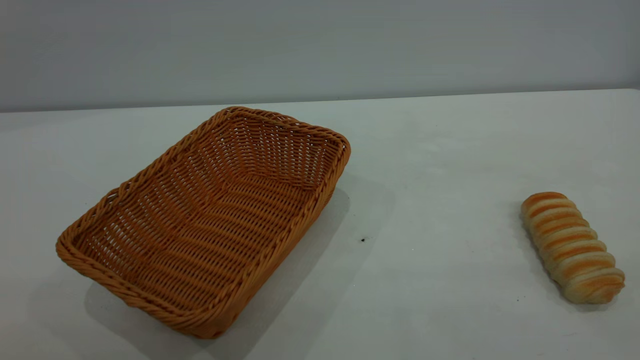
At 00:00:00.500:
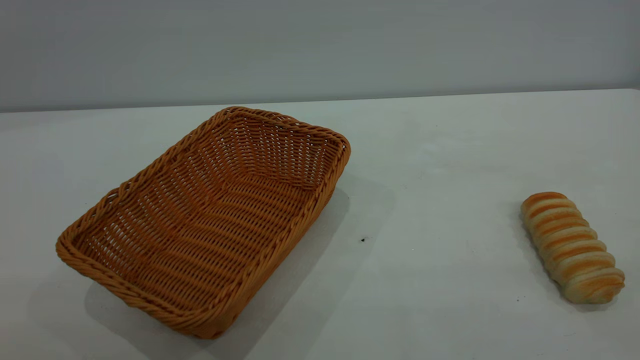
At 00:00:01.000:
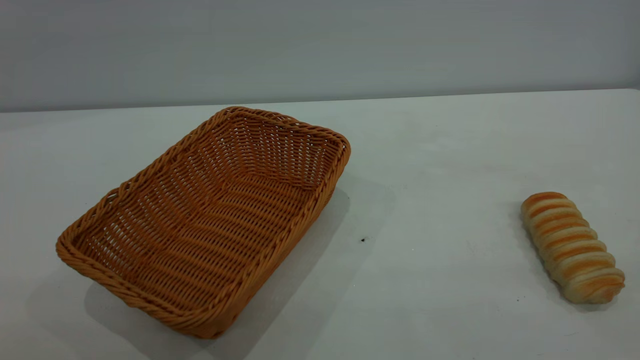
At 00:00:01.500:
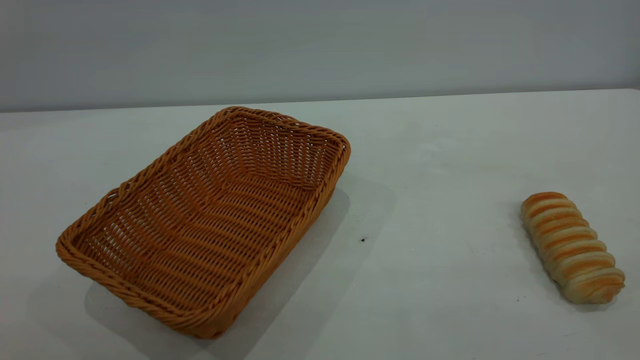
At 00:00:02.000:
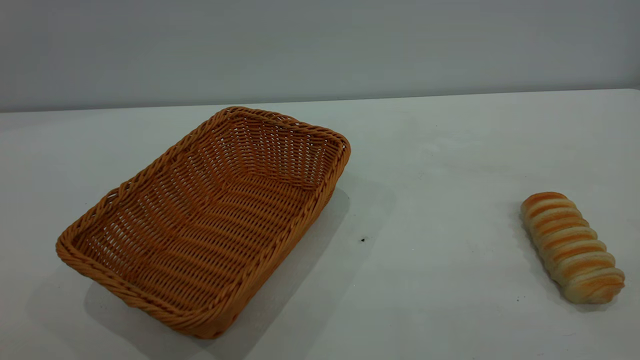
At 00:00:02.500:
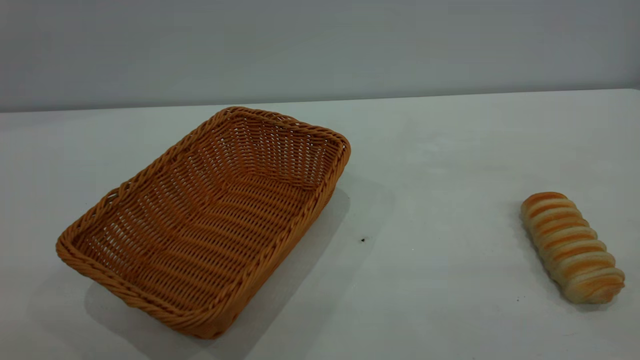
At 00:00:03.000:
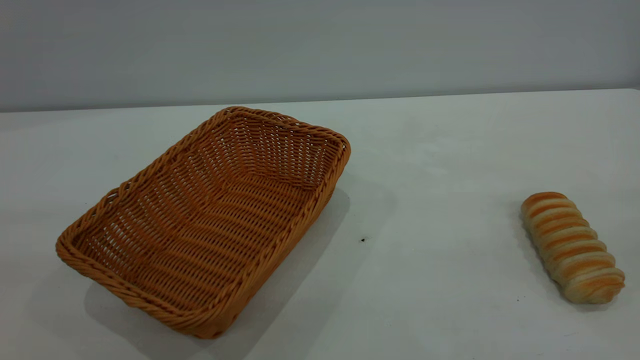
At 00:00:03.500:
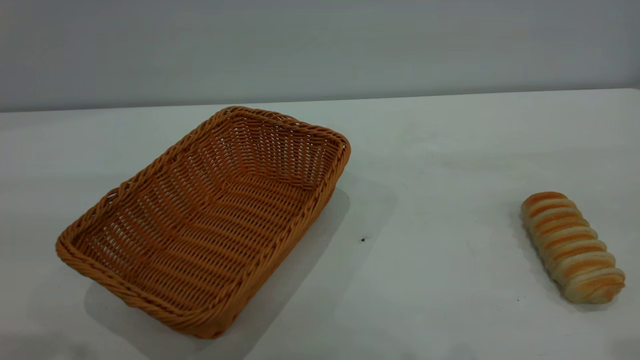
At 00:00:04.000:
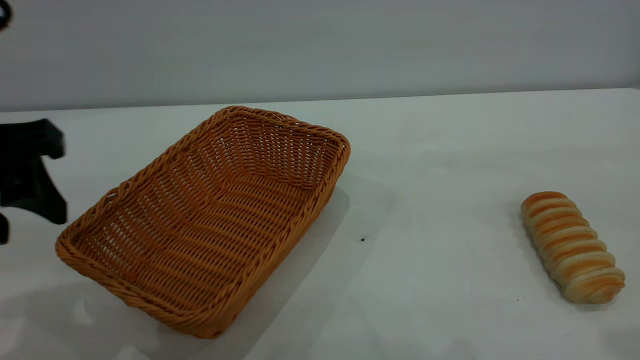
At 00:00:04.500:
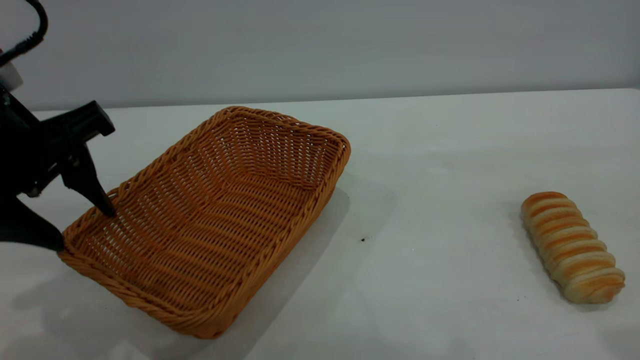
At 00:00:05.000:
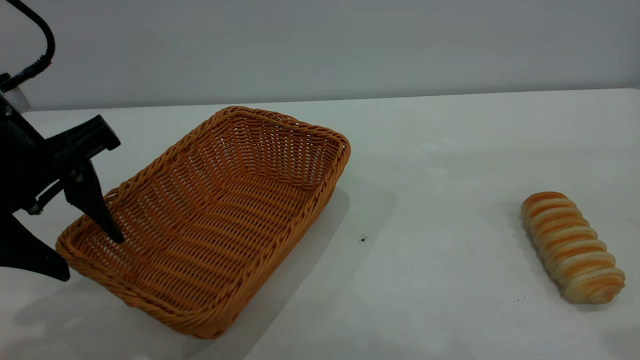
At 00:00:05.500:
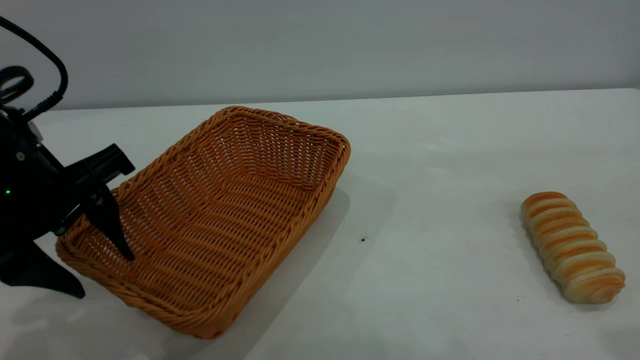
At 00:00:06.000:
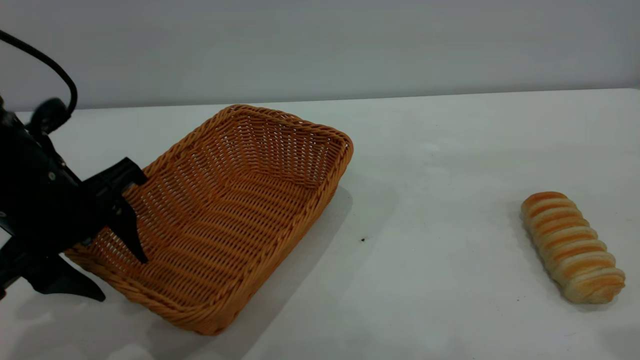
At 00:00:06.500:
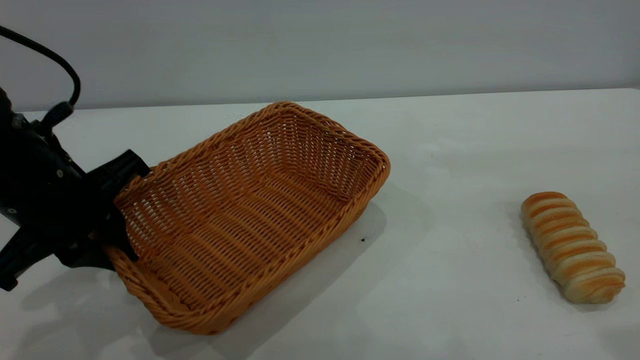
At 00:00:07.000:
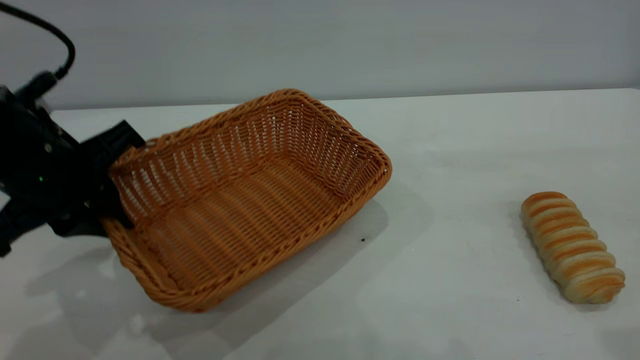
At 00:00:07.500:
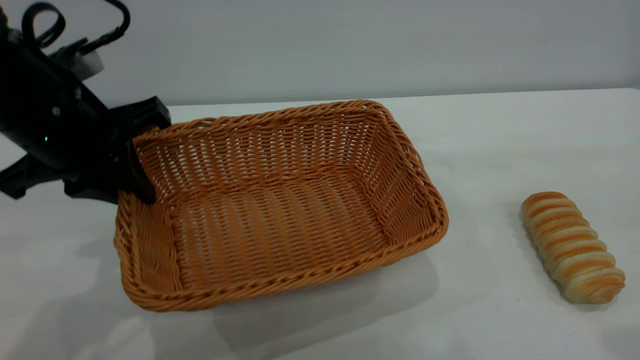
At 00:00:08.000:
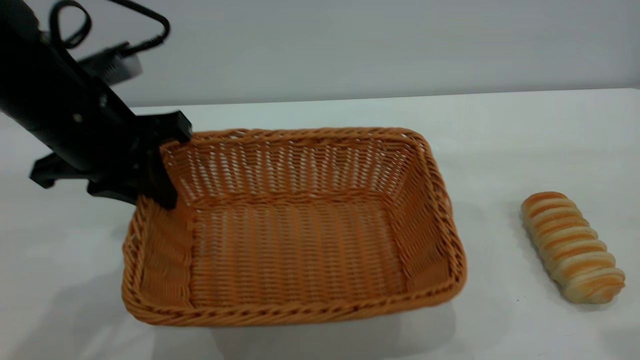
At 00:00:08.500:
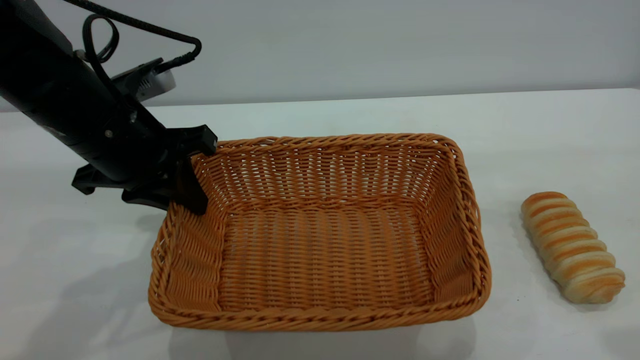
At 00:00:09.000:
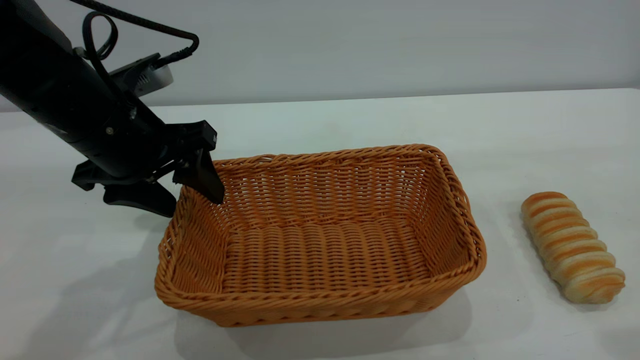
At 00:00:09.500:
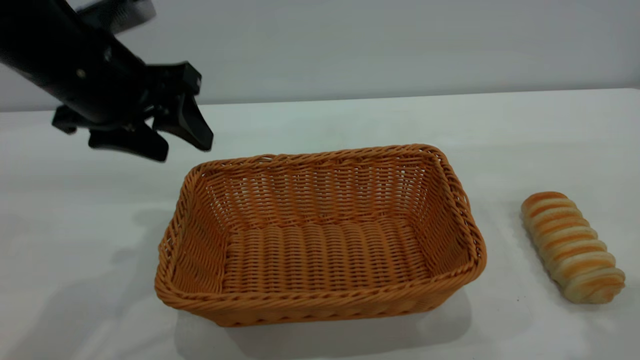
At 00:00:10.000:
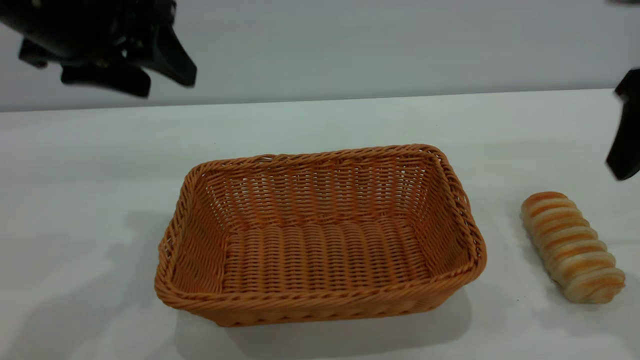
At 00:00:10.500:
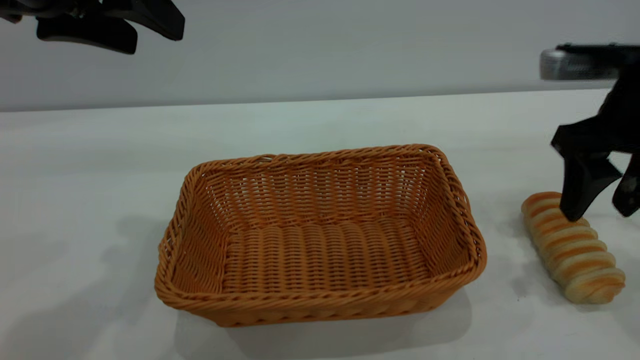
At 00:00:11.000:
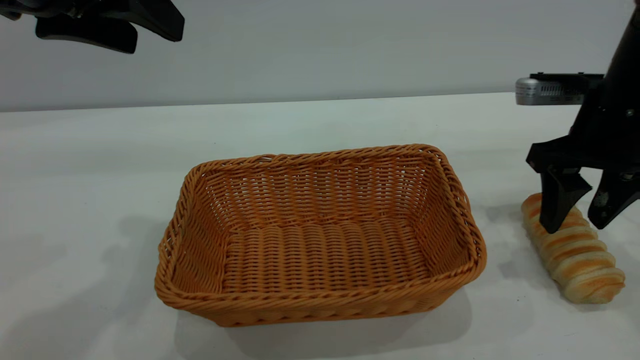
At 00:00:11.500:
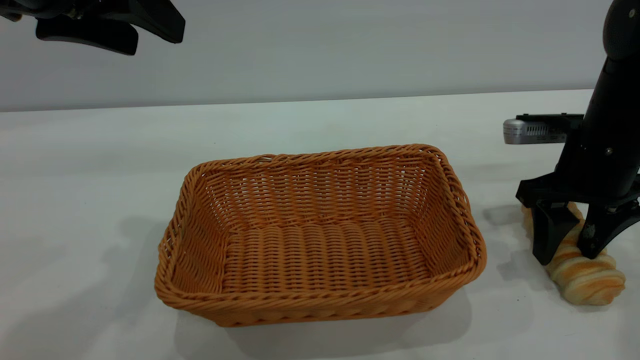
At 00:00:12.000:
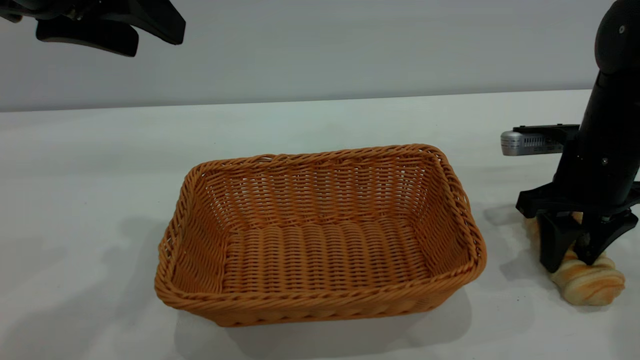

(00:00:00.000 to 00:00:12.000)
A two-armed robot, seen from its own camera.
Task of the whole recording: One hand grasps the yellow basket and places it in the middle of the table, while the other hand picks up the long bread and puts it into the yellow basket.
Step, 00:00:00.000 - 00:00:09.000: Move the basket to the center of view.
00:00:02.000 - 00:00:04.000: The left gripper goes roughly 25 cm forward and downward.
00:00:04.000 - 00:00:06.000: The left gripper travels downward by some 10 cm.
00:00:06.000 - 00:00:08.000: The left gripper moves about 5 cm, and closes.
00:00:08.000 - 00:00:10.000: The right gripper goes approximately 15 cm forward and downward. Meanwhile the left gripper goes roughly 10 cm upward, and opens up.
00:00:10.000 - 00:00:12.000: The right gripper shifts roughly 15 cm downward and forward, and closes up.

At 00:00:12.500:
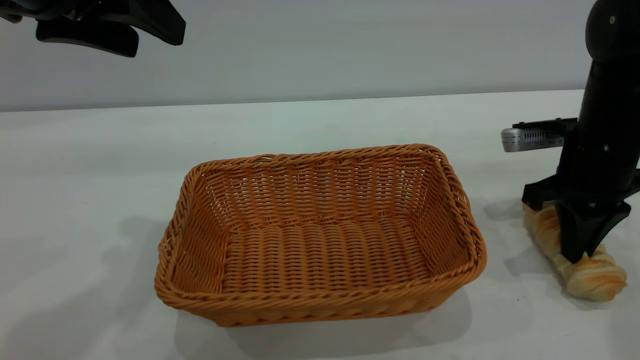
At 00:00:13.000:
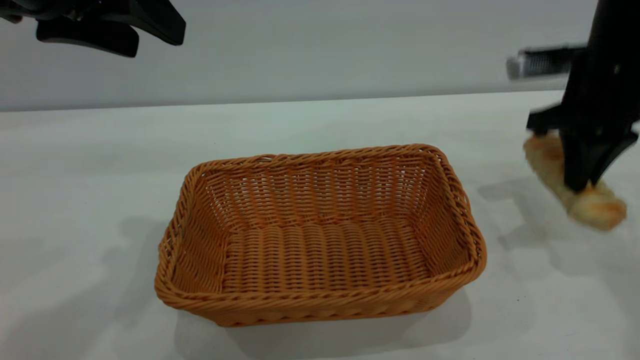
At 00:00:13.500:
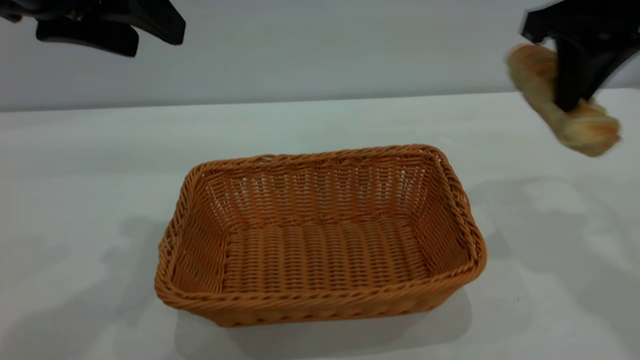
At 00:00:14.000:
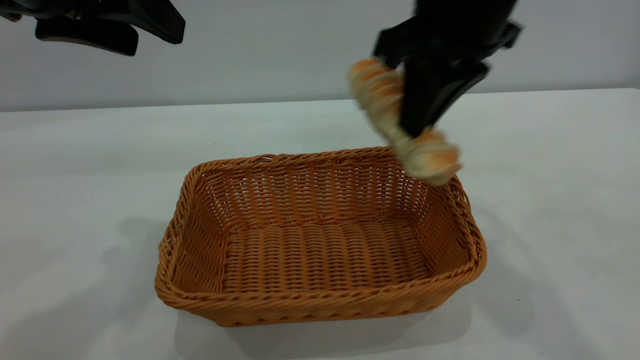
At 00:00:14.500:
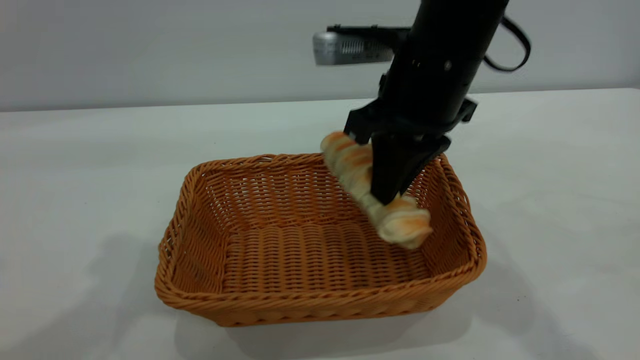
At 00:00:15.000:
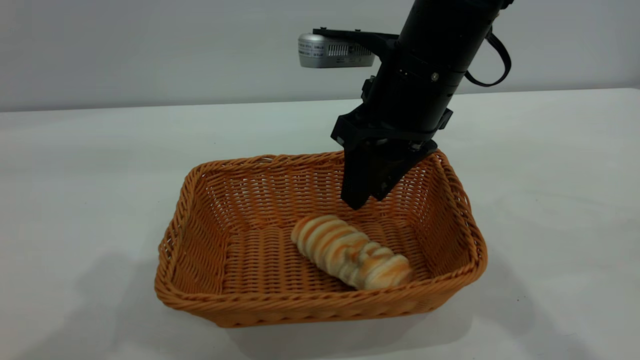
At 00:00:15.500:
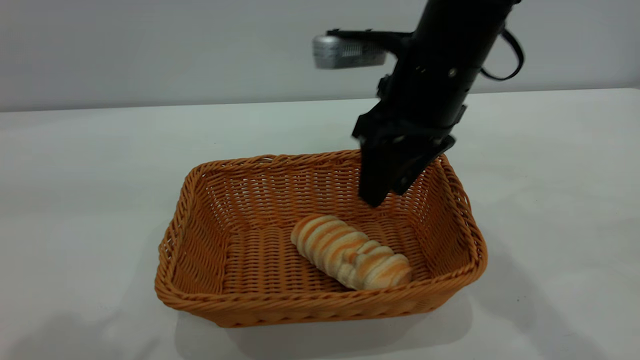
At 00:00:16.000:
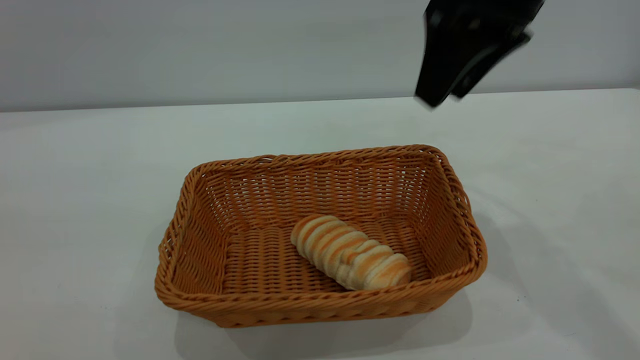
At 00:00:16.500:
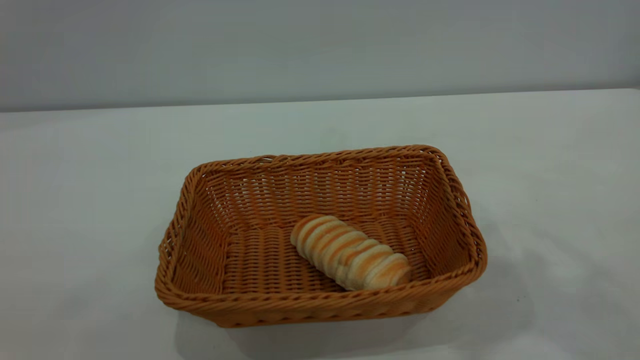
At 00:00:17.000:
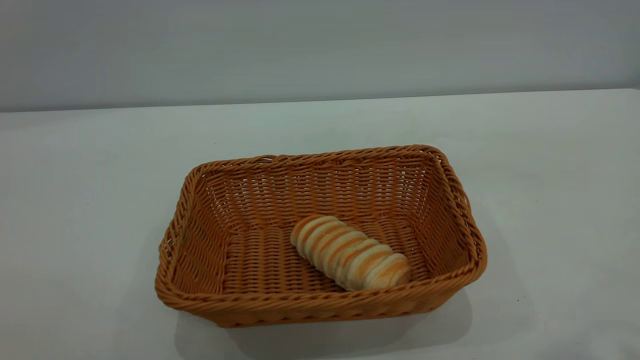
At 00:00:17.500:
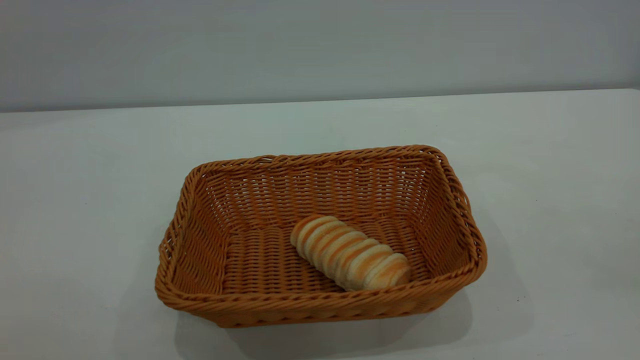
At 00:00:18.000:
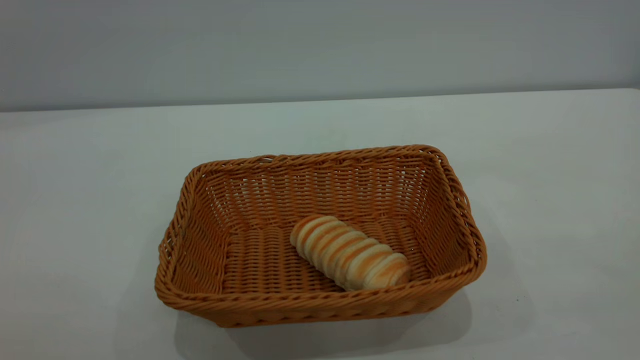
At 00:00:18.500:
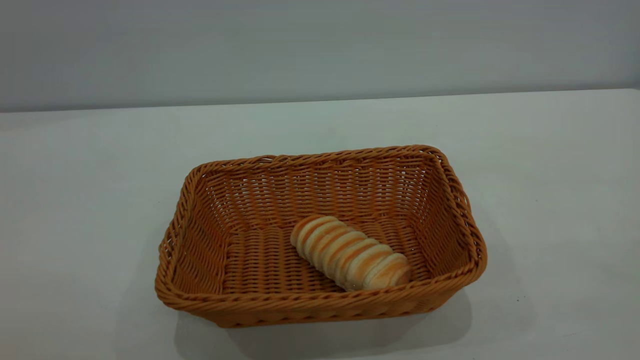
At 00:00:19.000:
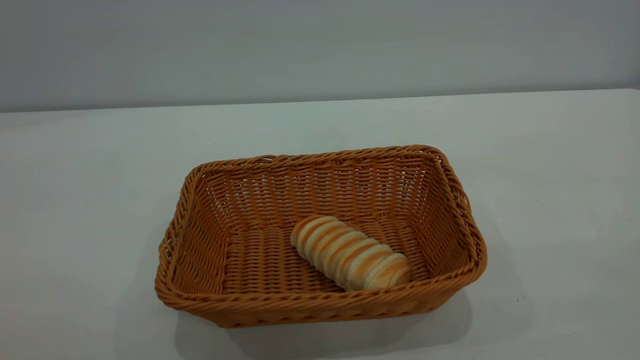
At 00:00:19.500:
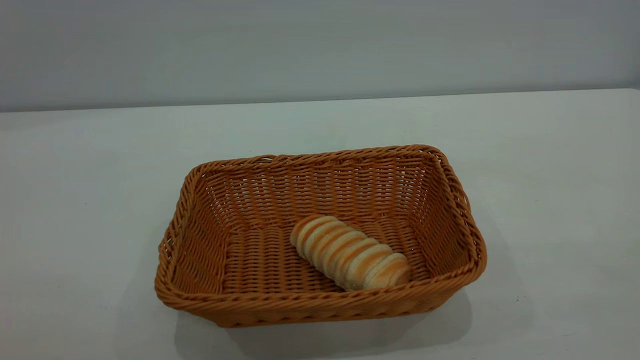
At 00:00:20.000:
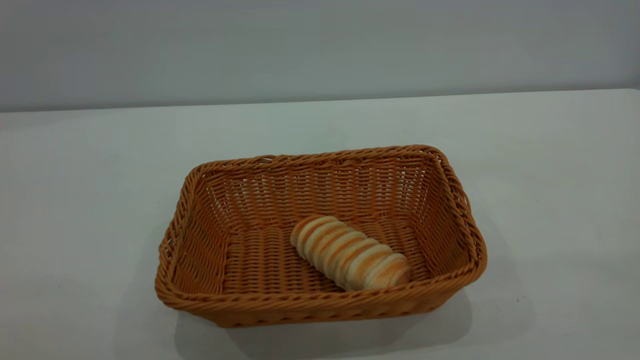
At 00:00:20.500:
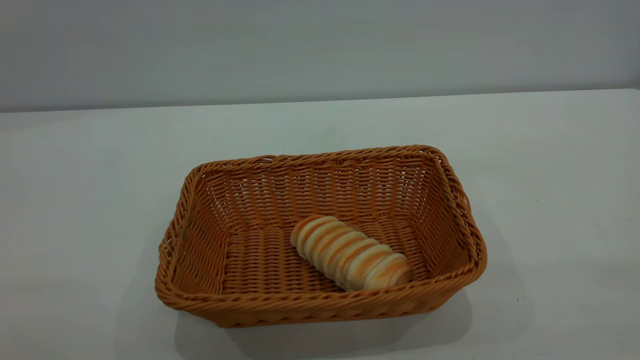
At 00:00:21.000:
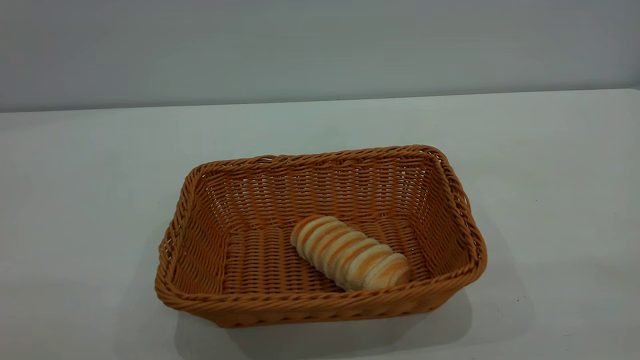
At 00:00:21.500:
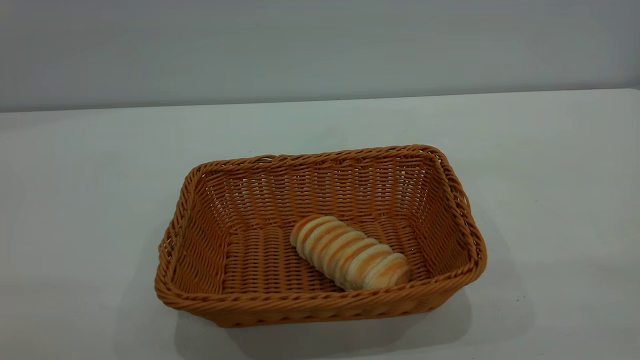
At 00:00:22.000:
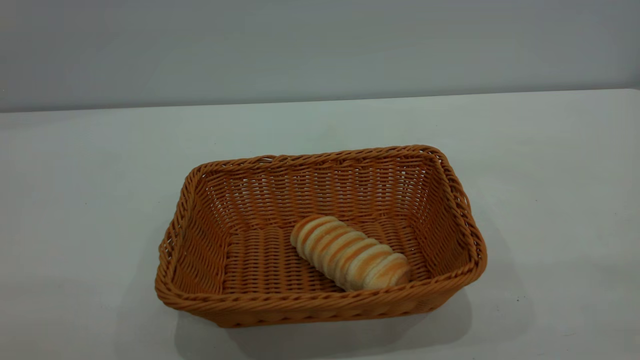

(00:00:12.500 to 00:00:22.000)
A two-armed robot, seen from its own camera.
Task of the whole recording: One hand grasps the yellow basket and places it in the middle of the table, while the other hand picks up the long bread and puts it into the yellow basket.
Step, 00:00:13.500 - 00:00:15.500: place the bread into the basket.
00:00:12.500 - 00:00:14.500: The right gripper is displaced to the left and upward by about 20 cm. Meanwhile the left gripper heads upward, covering roughly 5 cm.
00:00:14.500 - 00:00:16.500: The right gripper travels upward and to the right by roughly 25 cm, and opens. Meanwhile the left gripper moves backward, about 25 cm.
